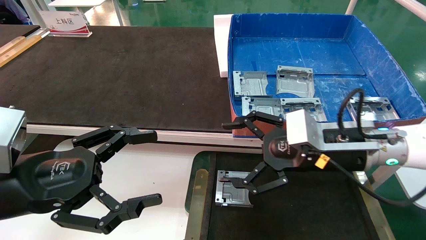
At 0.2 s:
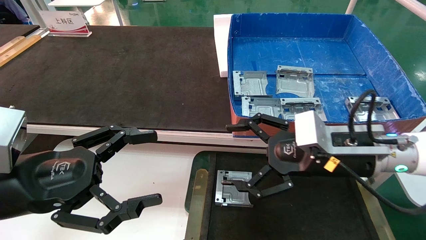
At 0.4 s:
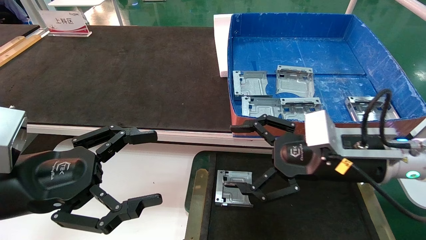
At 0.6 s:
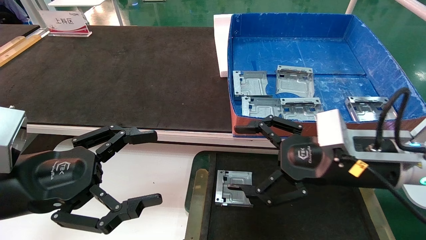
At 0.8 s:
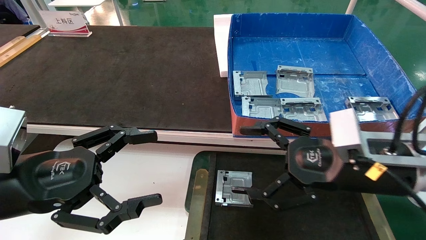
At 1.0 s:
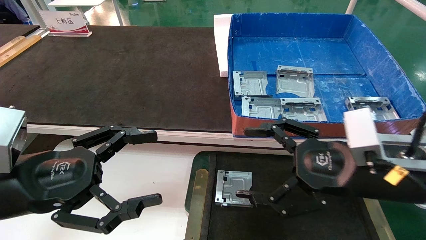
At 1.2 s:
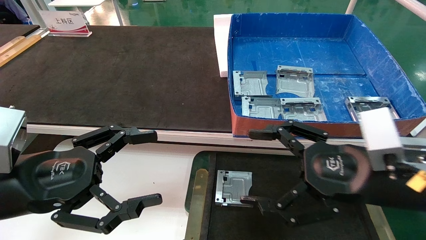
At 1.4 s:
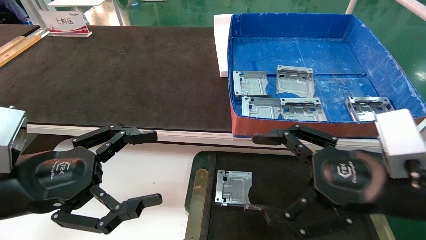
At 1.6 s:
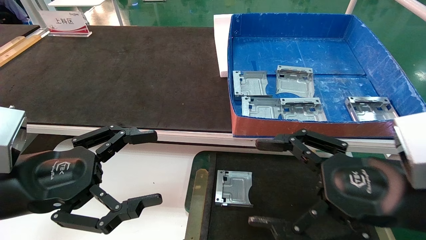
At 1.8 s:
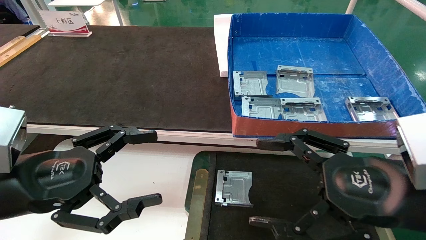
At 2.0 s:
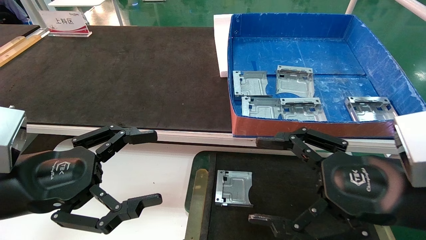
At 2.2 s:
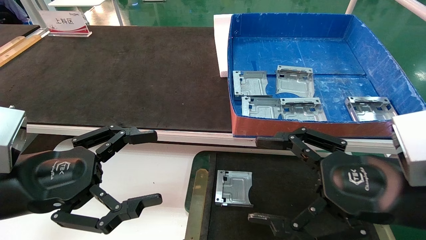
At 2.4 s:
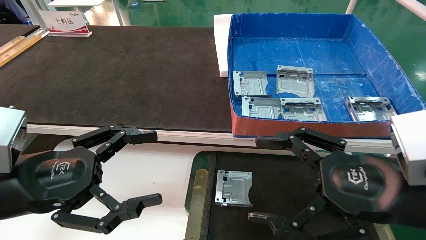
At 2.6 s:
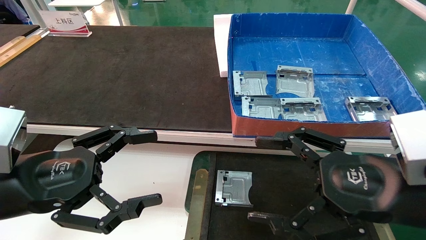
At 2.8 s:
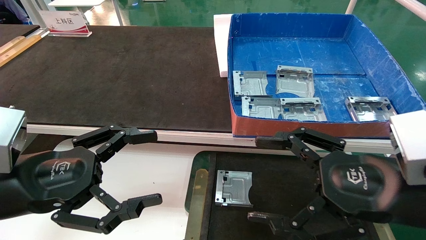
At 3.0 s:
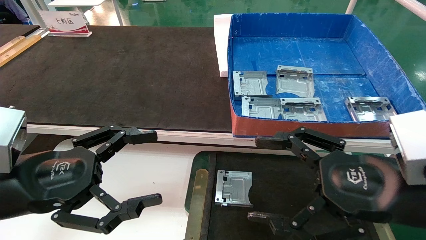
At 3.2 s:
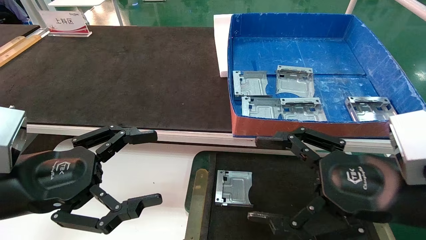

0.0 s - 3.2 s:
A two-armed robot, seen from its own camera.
Task of the whole recording: pick up parts and place them into a black container.
0.0 s - 1.6 s: The right gripper travels backward by approximately 10 cm.
1.6 s - 3.2 s: Both grippers stay put.
